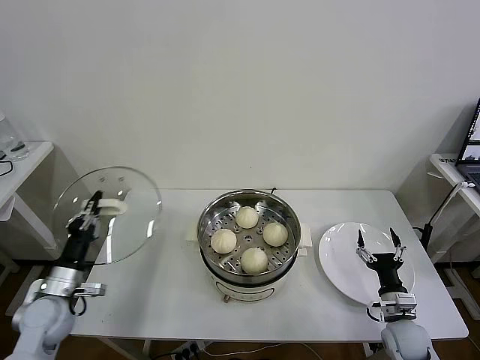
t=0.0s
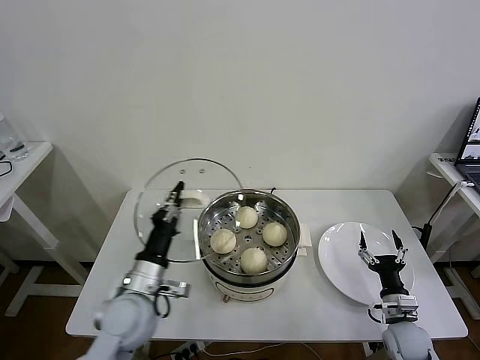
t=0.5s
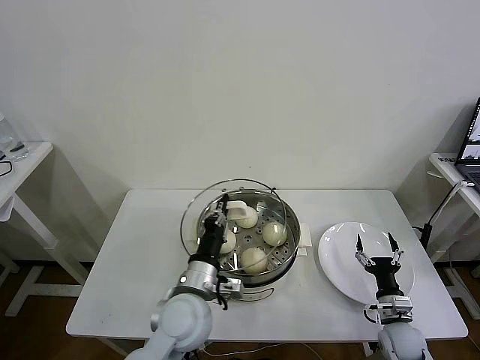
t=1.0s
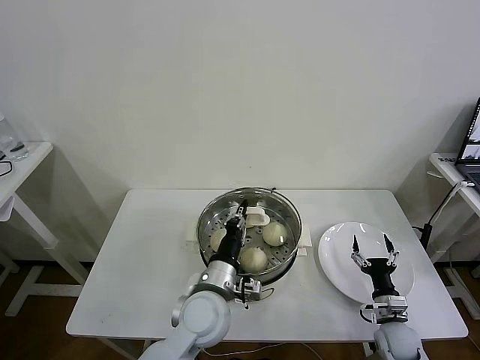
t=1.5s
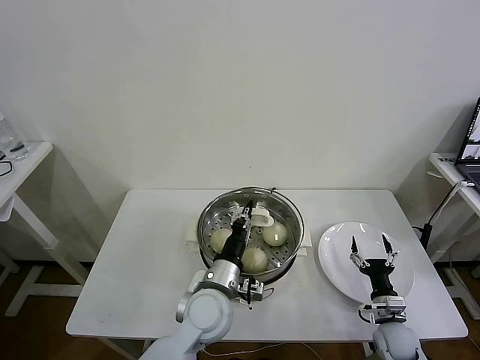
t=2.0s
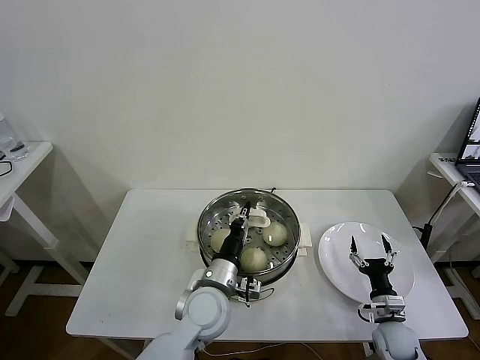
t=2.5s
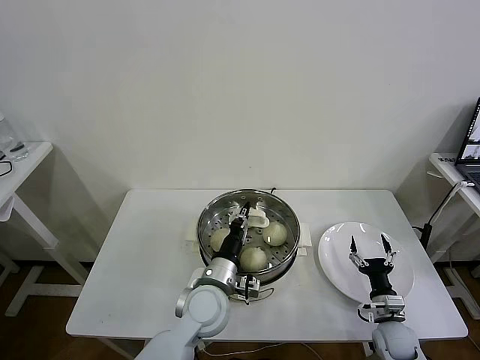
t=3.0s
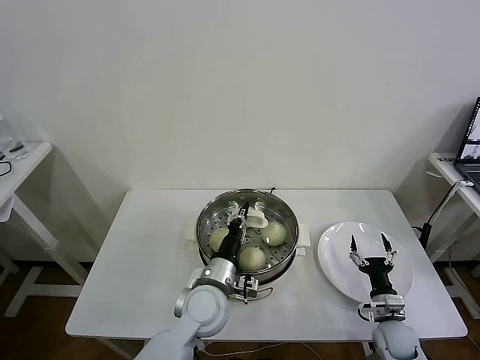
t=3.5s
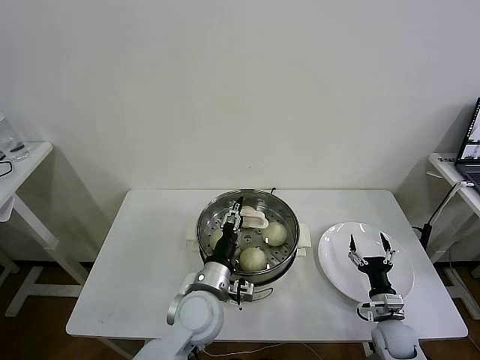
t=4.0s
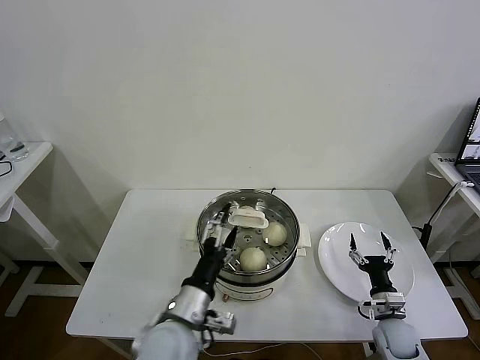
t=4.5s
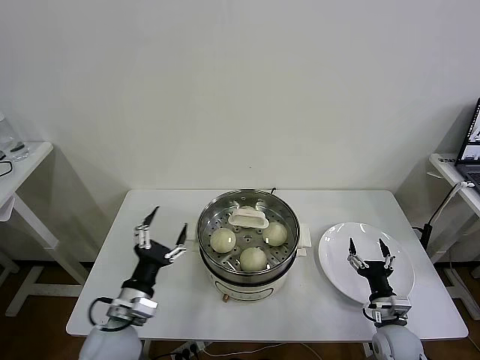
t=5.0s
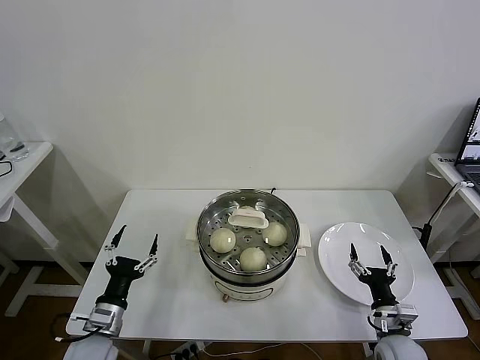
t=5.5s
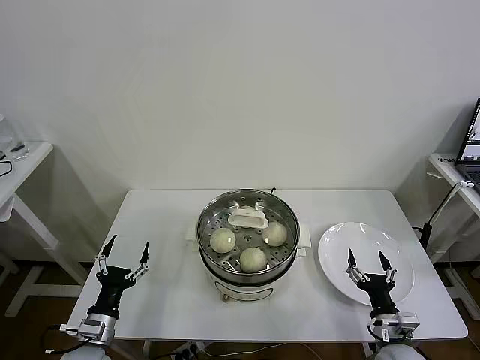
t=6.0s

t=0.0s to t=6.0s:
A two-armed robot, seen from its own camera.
Task of the whole recording: take steamed baozi put them in steamer then cover it.
Step, t=0.0s to t=4.0s: Place the pot lid on the steamer with left gripper.
t=0.0s to t=2.0s: The left gripper heads to the right, covering about 35 cm.
t=2.0s to t=4.0s: The left gripper opens up.
t=4.0s to t=6.0s: The right gripper shifts about 10 cm backward and upward, while the left gripper goes some 25 cm to the left, and opens.
